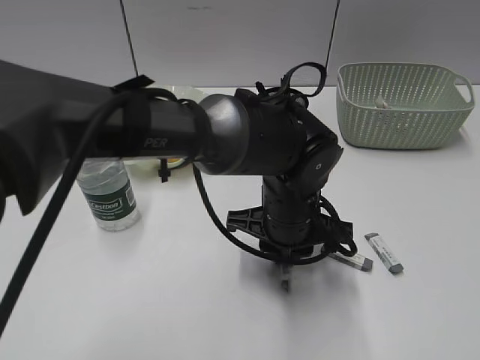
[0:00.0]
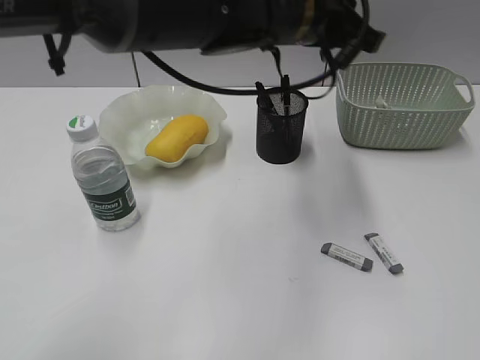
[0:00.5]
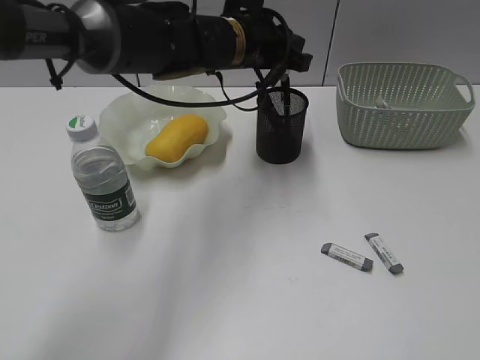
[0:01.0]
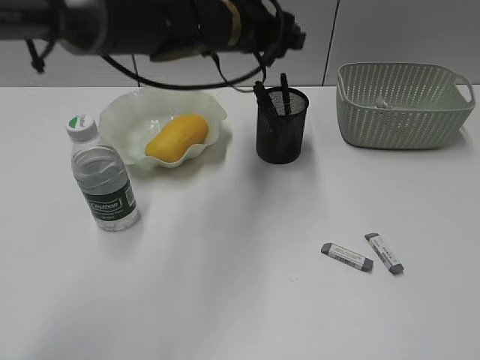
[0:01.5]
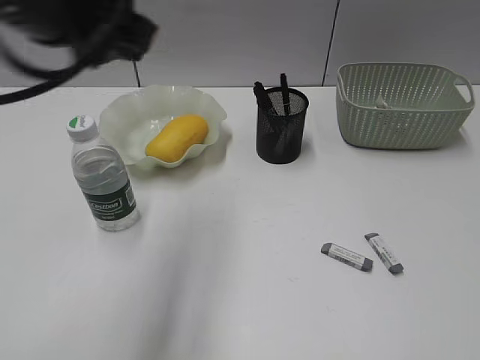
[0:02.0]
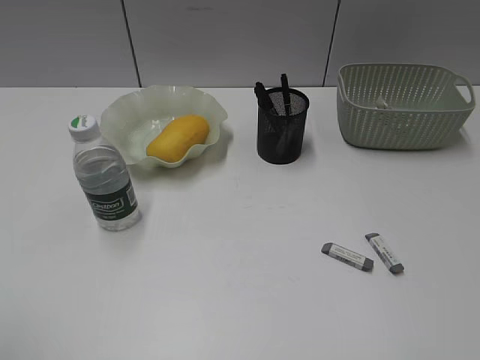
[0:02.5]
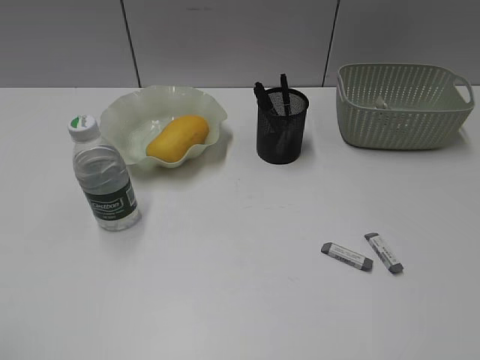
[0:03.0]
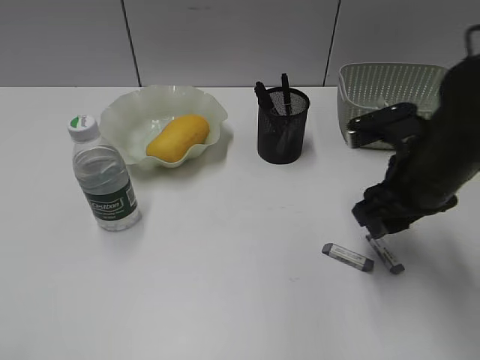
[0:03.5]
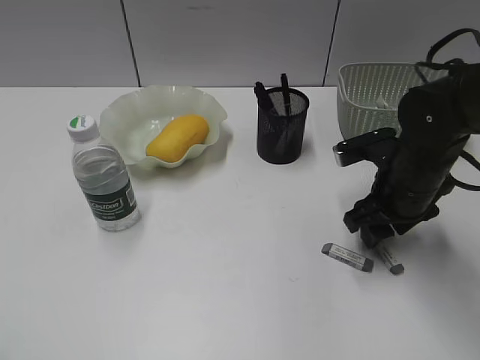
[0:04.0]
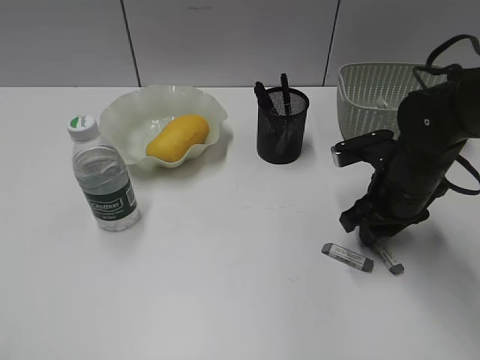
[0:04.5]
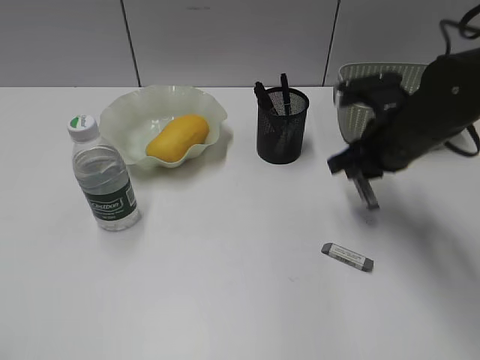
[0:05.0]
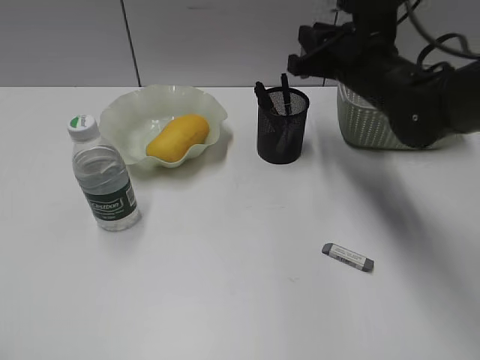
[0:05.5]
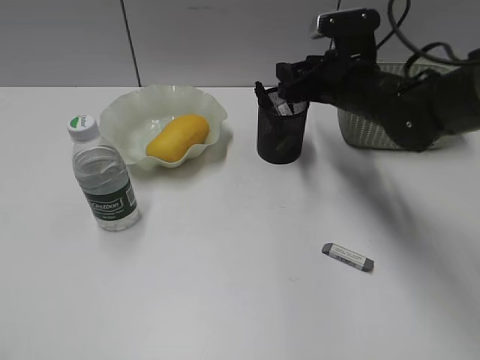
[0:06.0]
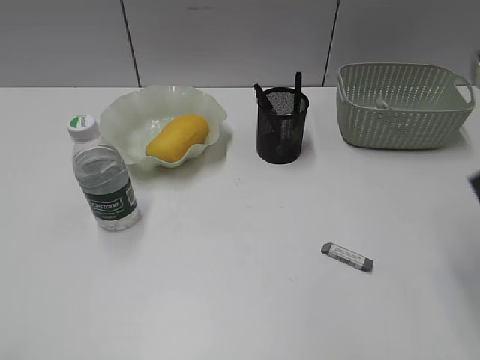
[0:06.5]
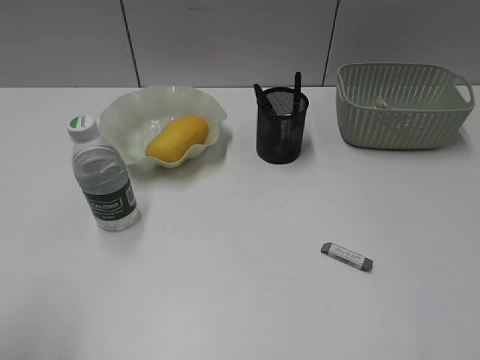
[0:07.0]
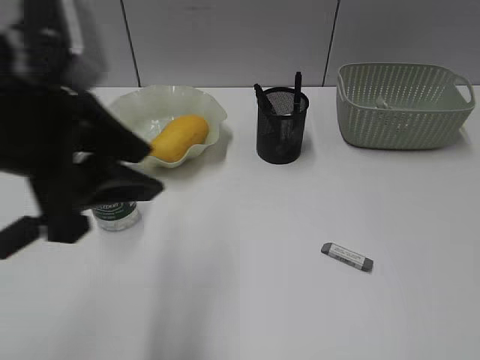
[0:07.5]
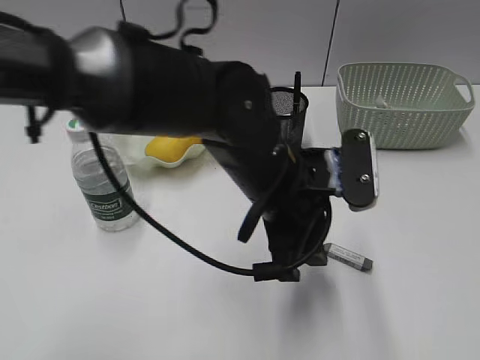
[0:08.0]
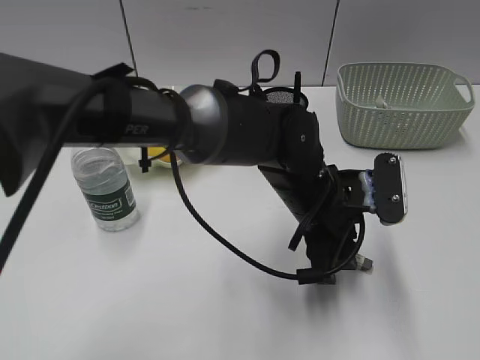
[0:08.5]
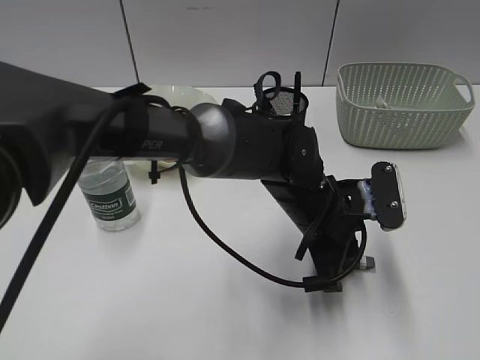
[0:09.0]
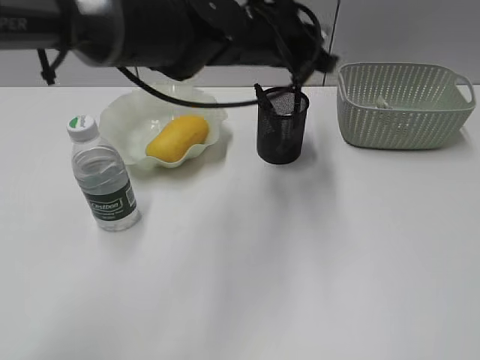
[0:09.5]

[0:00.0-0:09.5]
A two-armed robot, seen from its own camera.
Step, 0:00.5 to 0:01.0: Place the eraser in pen holder with left gripper.
Step, 0:01.5 to 0:04.5: Grasp the eraser with right gripper.
Step, 0:05.0 to 0:06.0: Place the eraser in pen holder with right gripper.
Step, 0:06.5 to 0:09.0: Grasp the eraser with left gripper.
0:00.0 to 0:02.0: The left gripper goes up and down, about 25 cm each way, reversing 2 times.
0:02.0 to 0:04.0: The left gripper goes roughly 30 cm backward and to the left. Meanwhile the right gripper moves forward and downward, about 35 cm.
0:04.0 to 0:05.5: The right gripper is displaced forward and upward by approximately 10 cm, and closes up.
0:05.5 to 0:07.5: The left gripper is displaced forward and to the right by about 25 cm. The right gripper goes roughly 40 cm backward, and opens.
0:07.5 to 0:09.5: The left gripper travels forward and to the right by some 25 cm, and closes up.

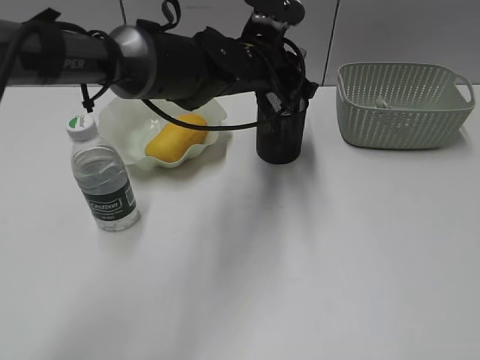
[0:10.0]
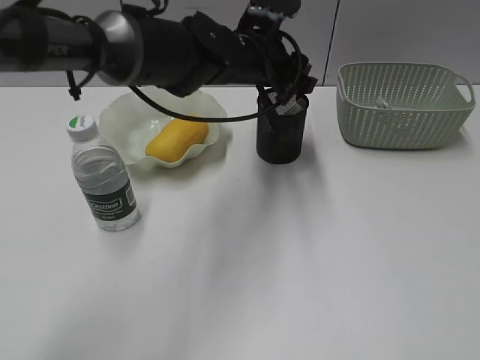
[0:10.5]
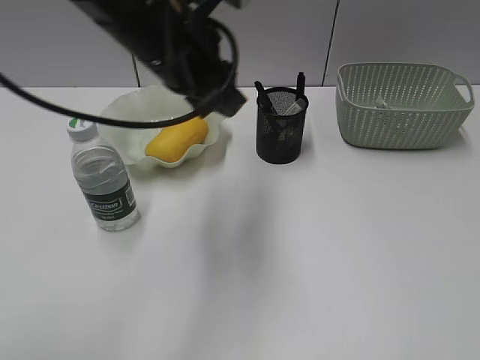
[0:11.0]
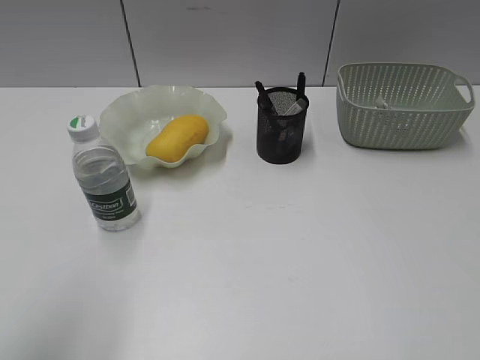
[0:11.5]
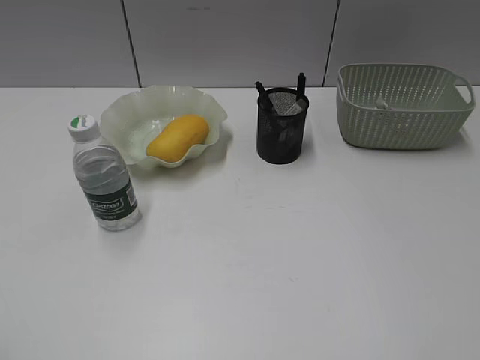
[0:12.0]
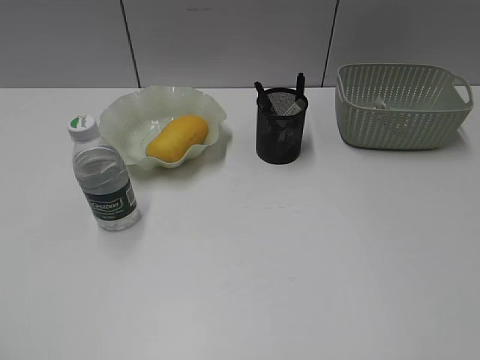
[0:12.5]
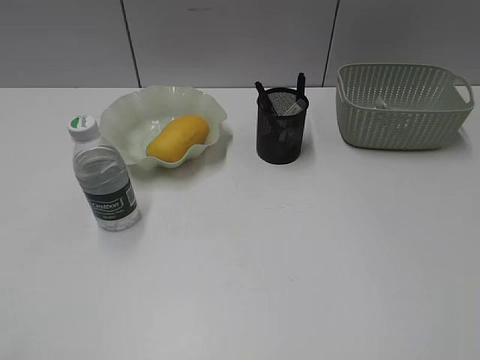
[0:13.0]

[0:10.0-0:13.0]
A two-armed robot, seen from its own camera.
0:10.0 to 0:11.5: The left gripper moves backward, to the left and upward, roughly 50 cm, and opens up.

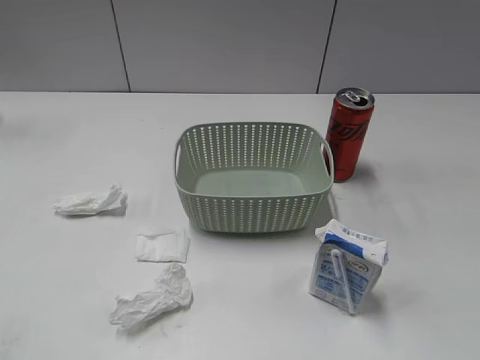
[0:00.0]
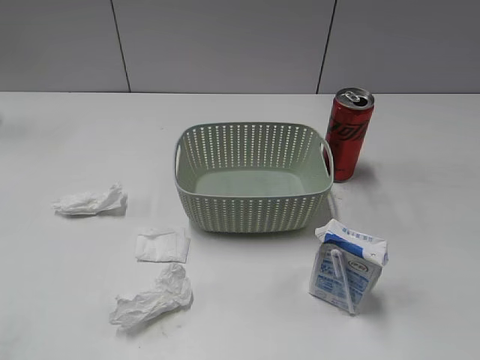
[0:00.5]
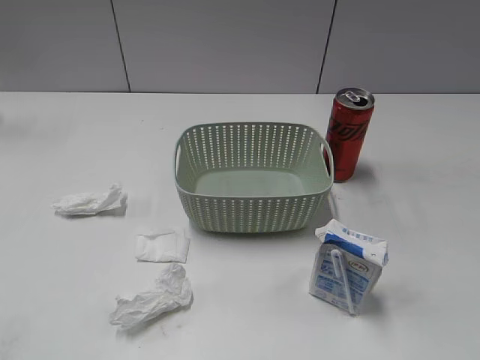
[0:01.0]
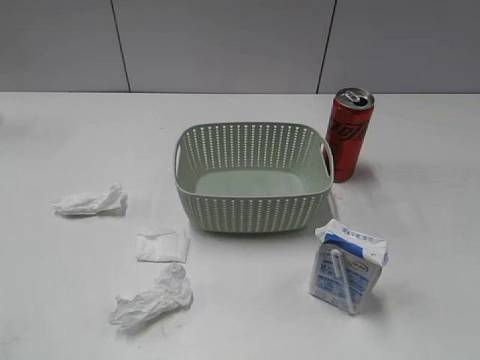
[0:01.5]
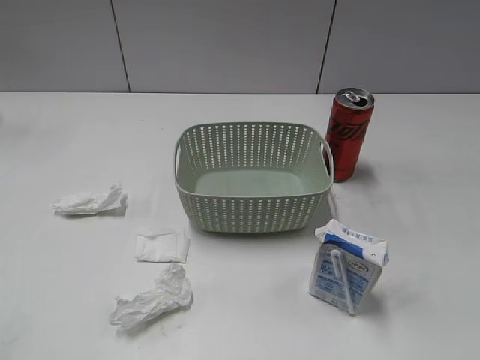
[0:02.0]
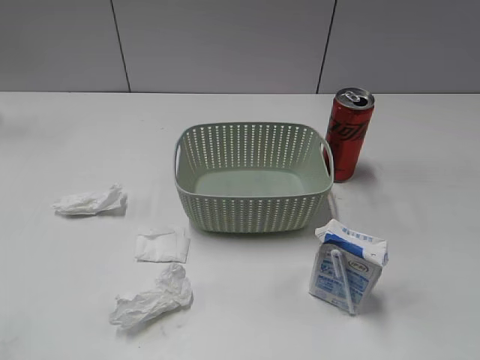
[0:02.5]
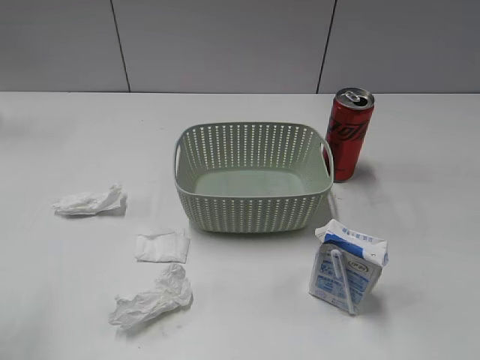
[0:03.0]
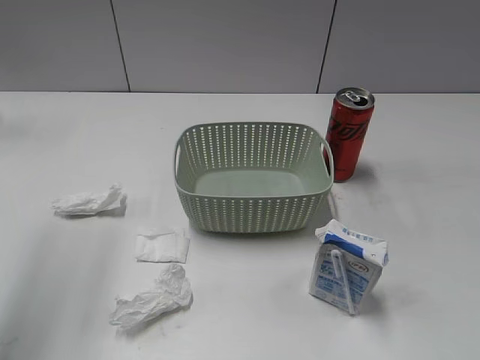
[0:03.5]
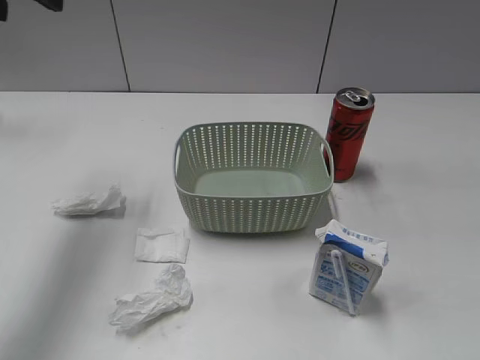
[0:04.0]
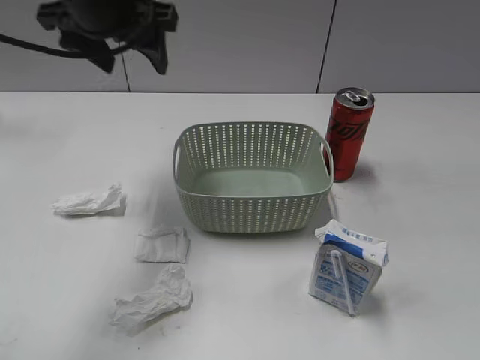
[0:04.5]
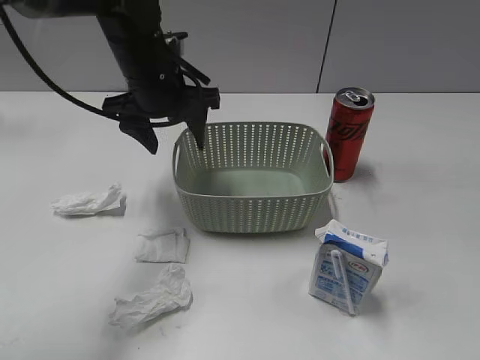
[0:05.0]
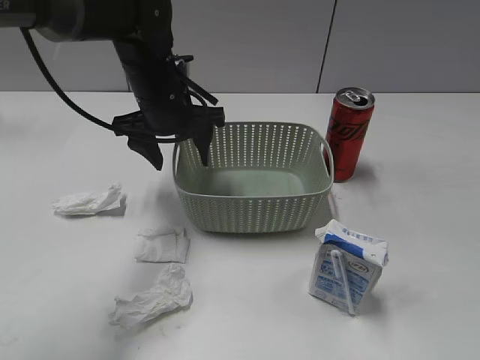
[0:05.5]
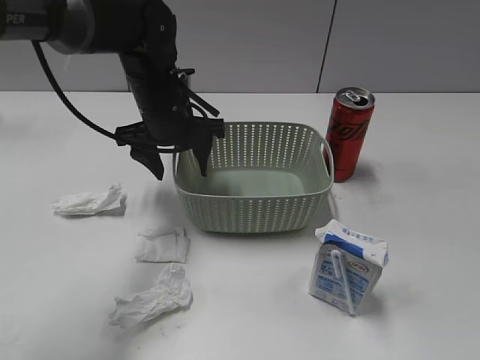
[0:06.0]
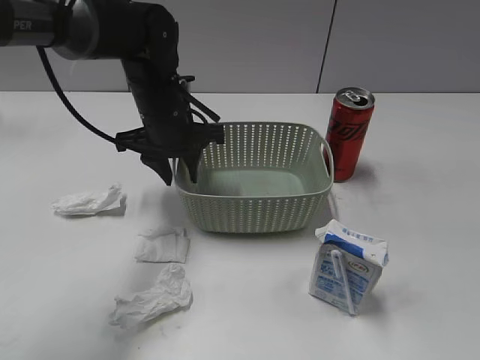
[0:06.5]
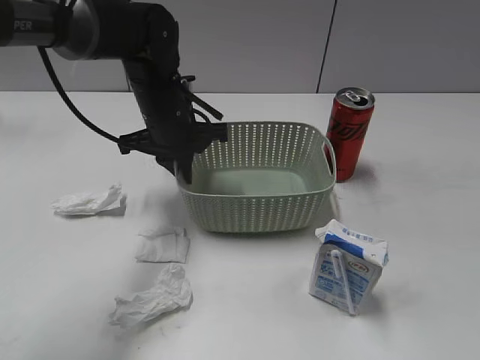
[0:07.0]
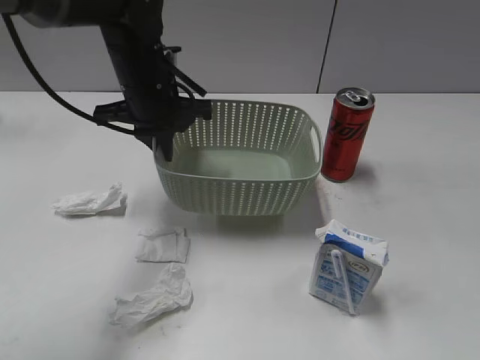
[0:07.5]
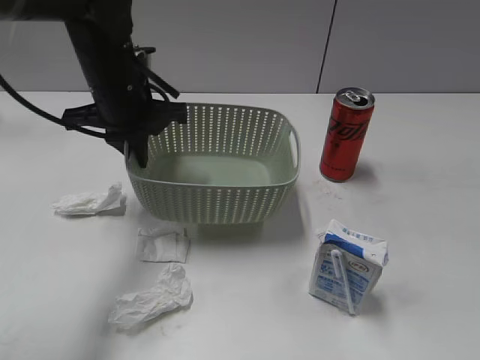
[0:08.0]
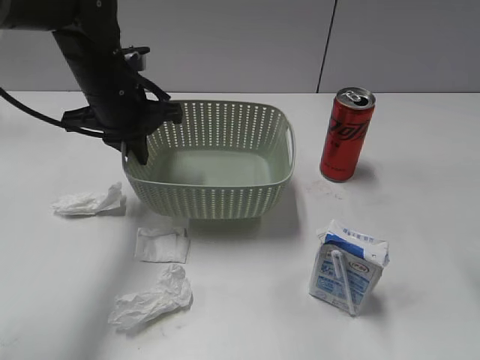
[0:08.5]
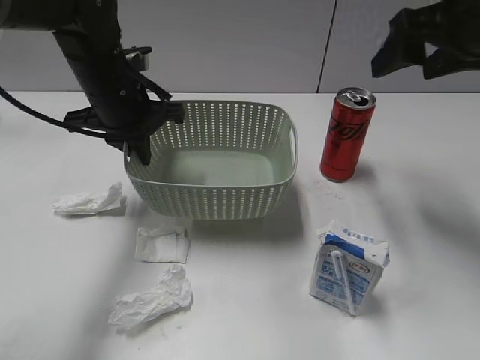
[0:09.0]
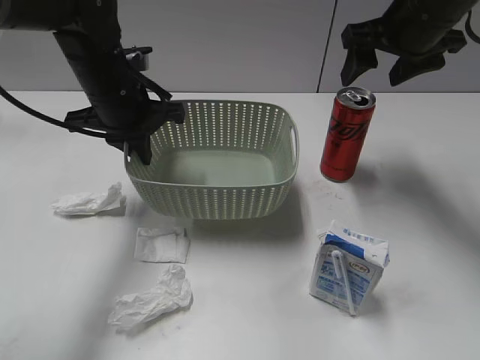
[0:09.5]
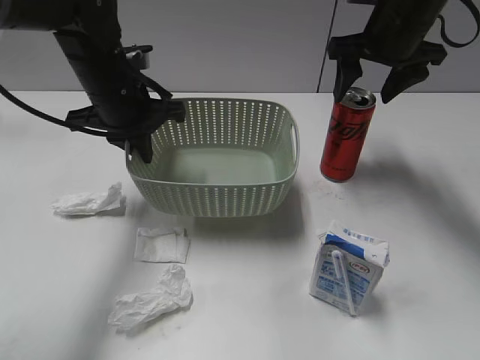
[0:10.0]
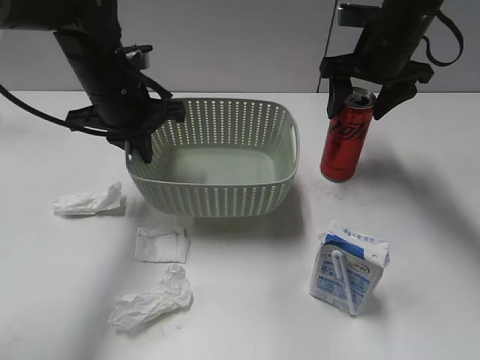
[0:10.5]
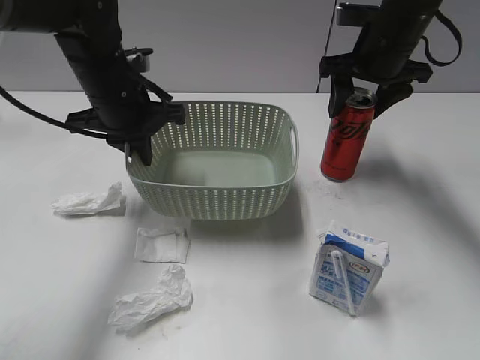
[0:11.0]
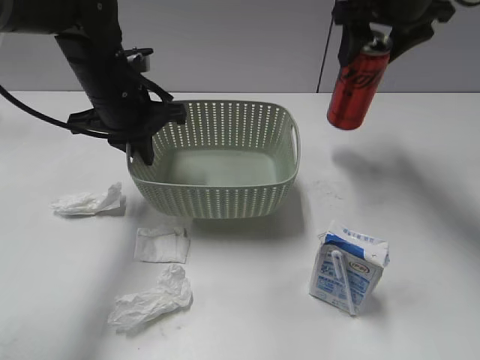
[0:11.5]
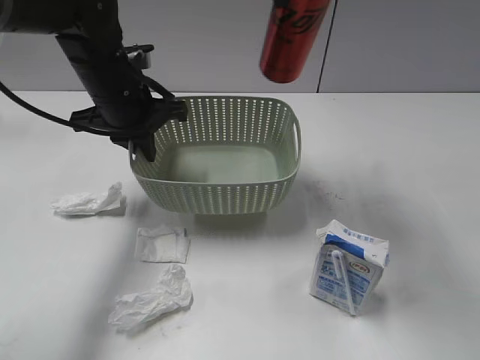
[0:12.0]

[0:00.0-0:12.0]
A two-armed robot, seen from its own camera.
Step, 0:04.0 to 0:06.5: Grasp the basket with left gripper.
Step, 0:07.0 to 0:08.5: Lift the basket with left gripper.
Step, 0:09.0 to 0:11.0: Grasp the cola can with right gripper.
0:02.0 to 0:04.0: The left gripper heads forward, covering about 35 cm.
0:04.0 to 0:06.0: The left gripper moves downward and to the right, about 25 cm.
0:06.0 to 0:08.0: The left gripper shifts by roughly 5 cm, and closes up. Meanwhile the right gripper shifts by about 5 cm.
0:08.0 to 0:10.0: The right gripper moves forward, some 40 cm, and opens its fingers.
0:10.0 to 0:12.0: The right gripper shifts approximately 20 cm upward, to the left and backward, and closes.
